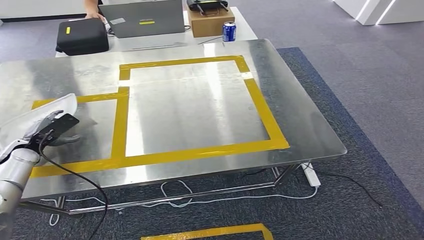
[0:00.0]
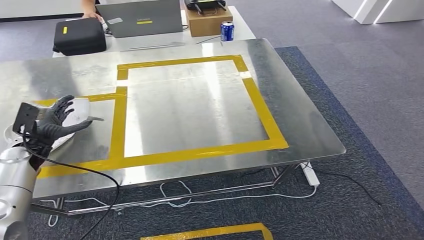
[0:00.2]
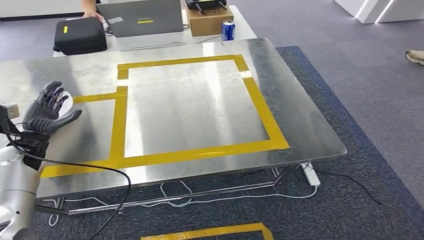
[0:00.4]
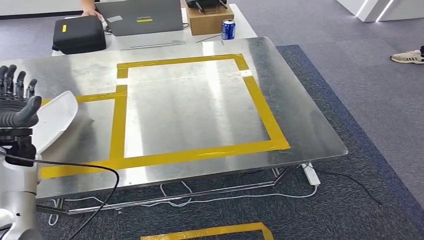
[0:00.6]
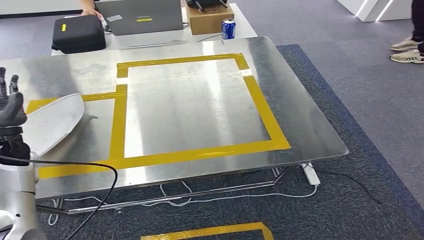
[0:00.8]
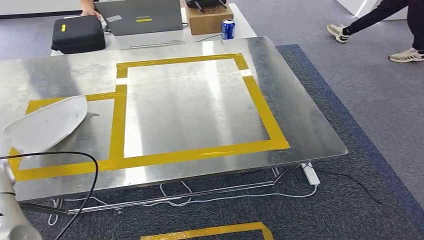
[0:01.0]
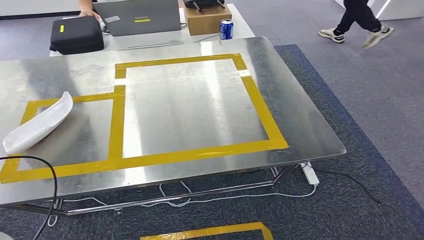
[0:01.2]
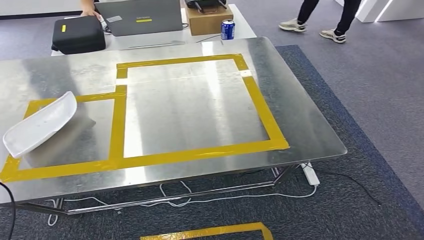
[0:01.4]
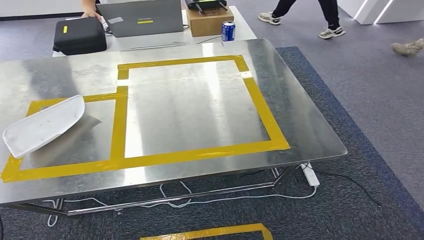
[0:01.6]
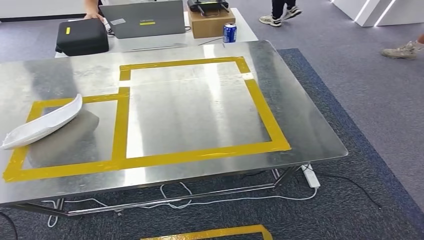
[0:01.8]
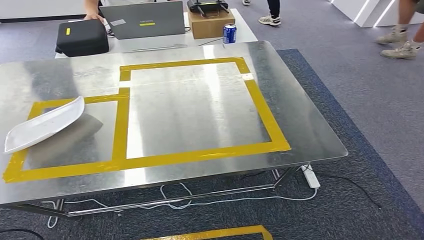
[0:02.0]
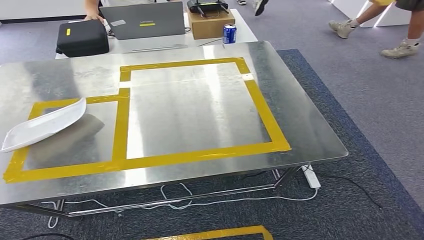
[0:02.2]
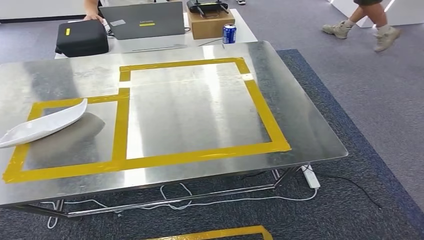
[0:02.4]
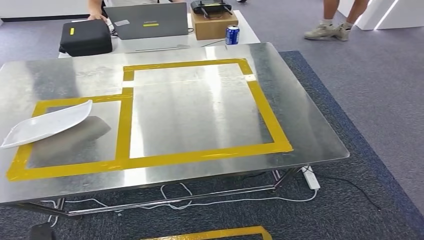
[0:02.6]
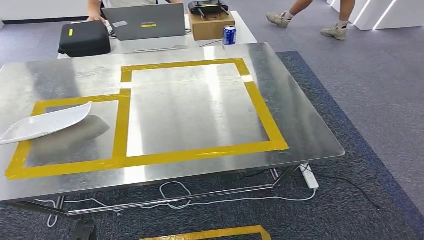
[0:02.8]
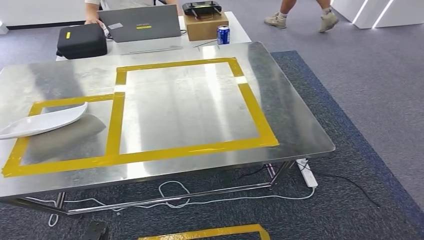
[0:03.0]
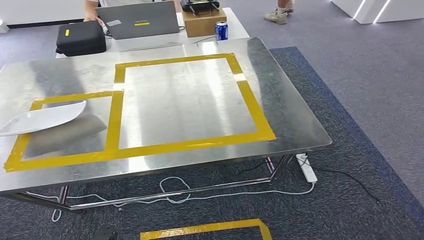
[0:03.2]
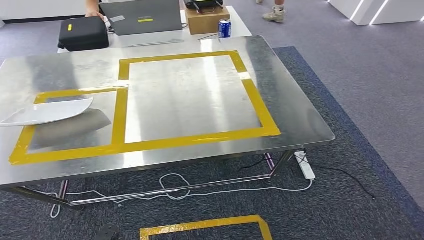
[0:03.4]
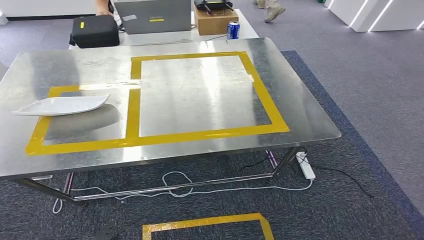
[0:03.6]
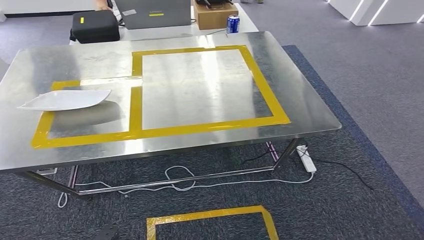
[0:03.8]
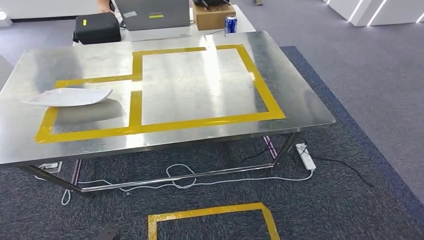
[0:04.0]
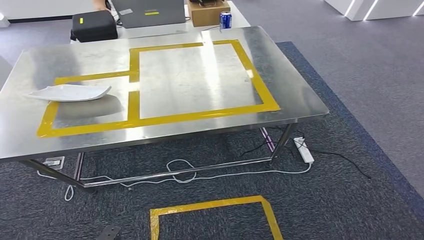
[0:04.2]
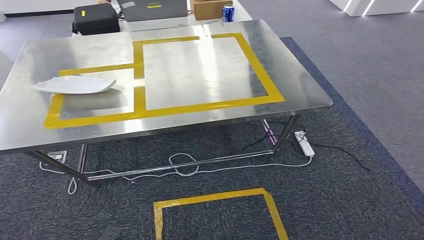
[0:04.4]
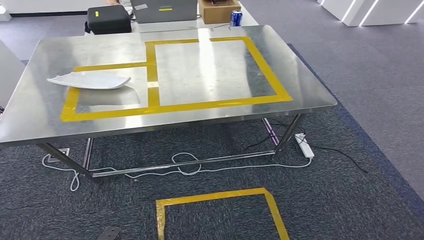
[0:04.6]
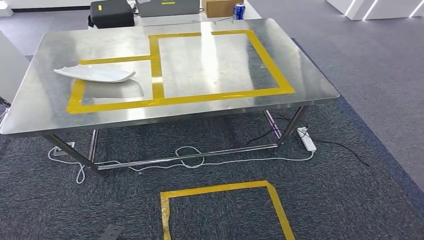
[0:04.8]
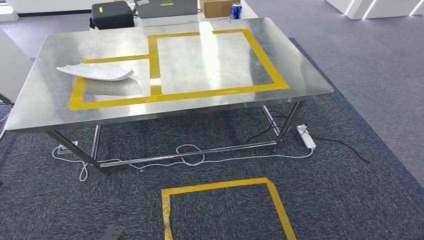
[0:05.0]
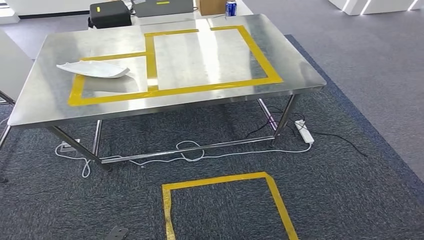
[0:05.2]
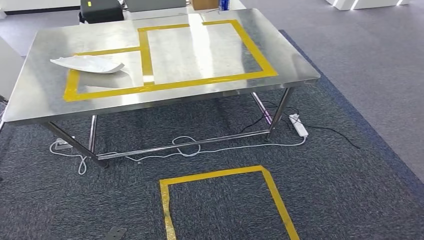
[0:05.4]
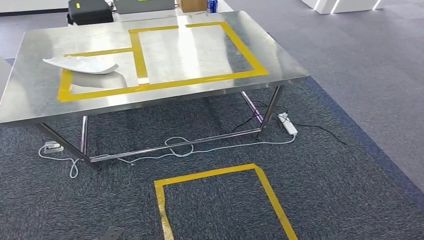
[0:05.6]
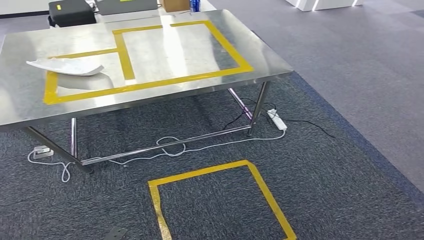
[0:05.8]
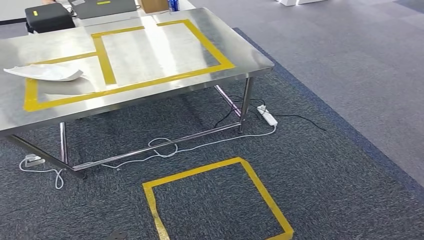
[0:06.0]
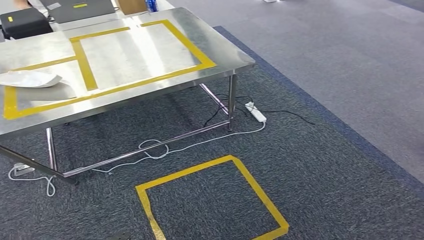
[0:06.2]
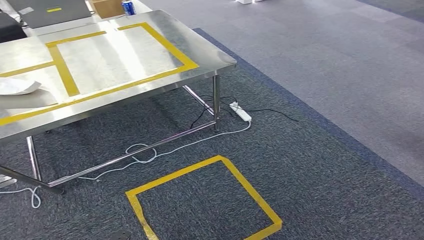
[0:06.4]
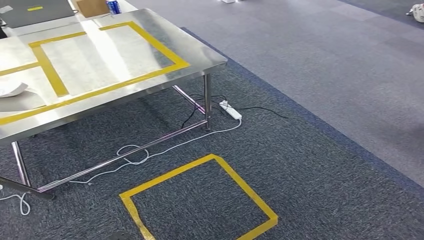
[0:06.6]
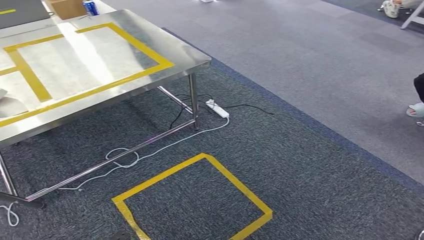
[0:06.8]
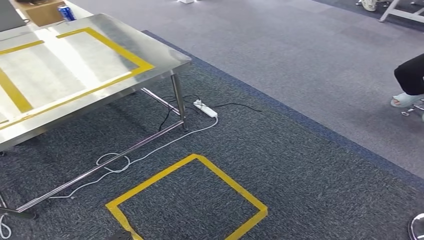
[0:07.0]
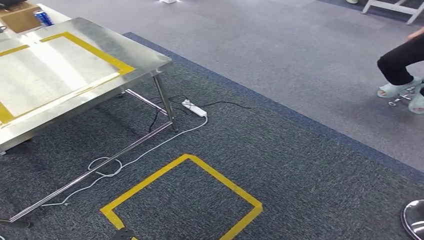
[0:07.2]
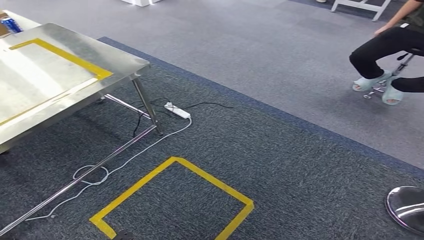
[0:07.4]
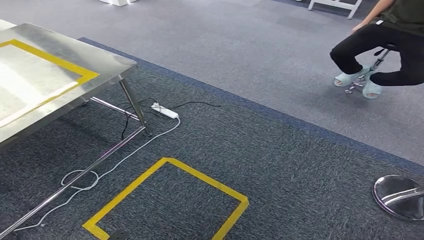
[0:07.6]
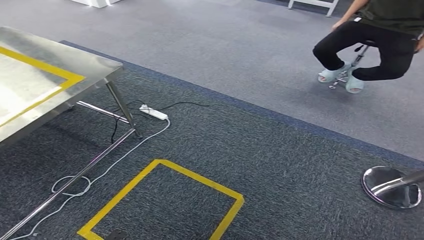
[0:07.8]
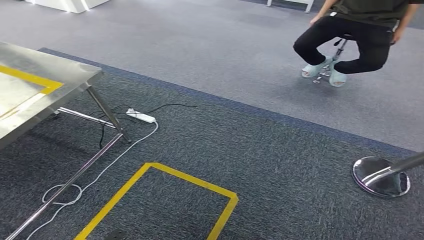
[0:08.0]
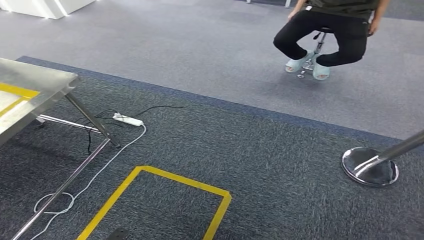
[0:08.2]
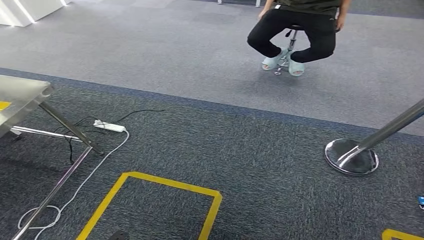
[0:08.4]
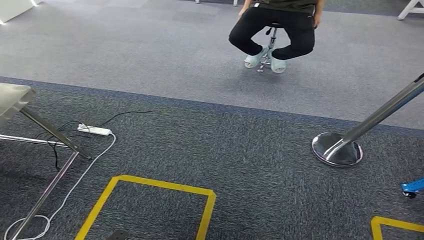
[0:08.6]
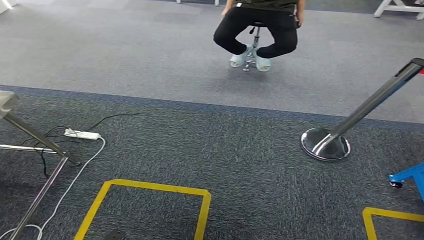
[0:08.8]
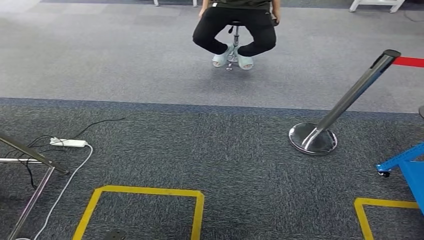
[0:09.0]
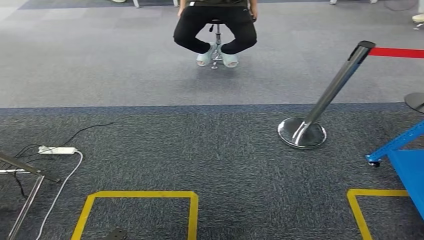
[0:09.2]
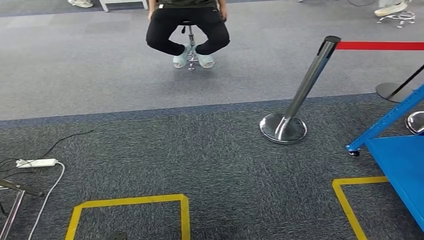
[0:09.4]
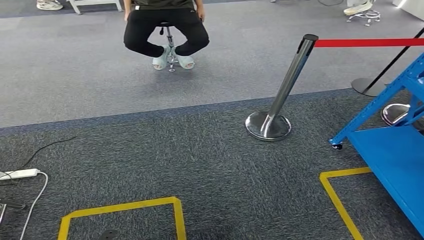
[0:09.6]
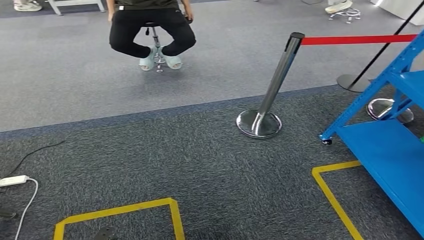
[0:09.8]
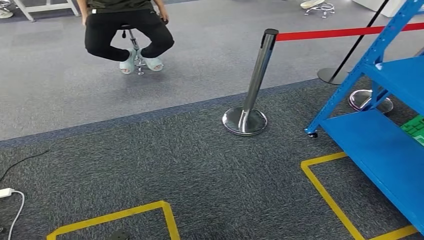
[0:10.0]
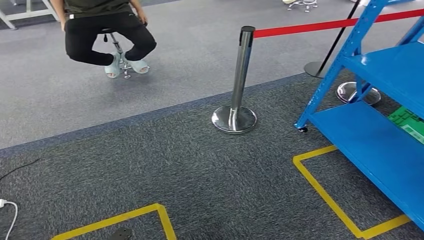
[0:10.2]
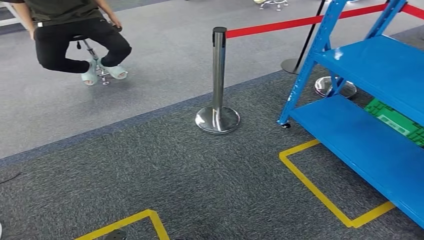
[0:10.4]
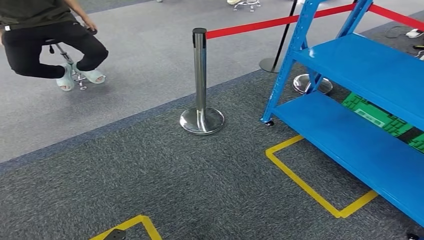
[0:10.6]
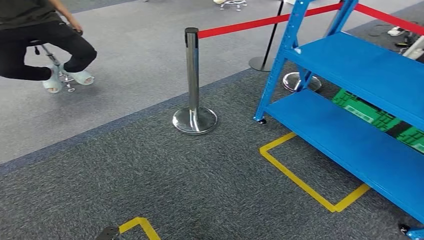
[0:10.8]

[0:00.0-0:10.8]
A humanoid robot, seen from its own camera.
Step, 0:00.0 to 0:02.4: Insert the small component into the corresponding slot on the workbench.
0:00.0 to 0:01.6: The left hand heads backward and to the left, covering roughly 30 cm.

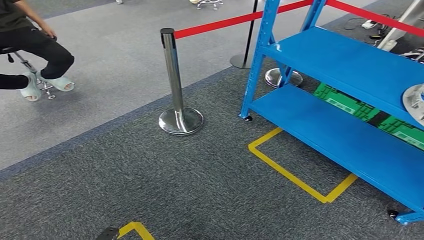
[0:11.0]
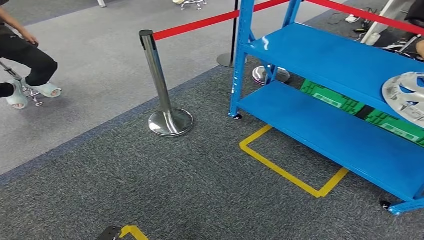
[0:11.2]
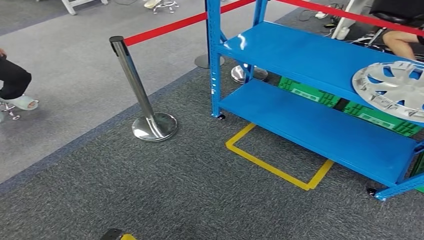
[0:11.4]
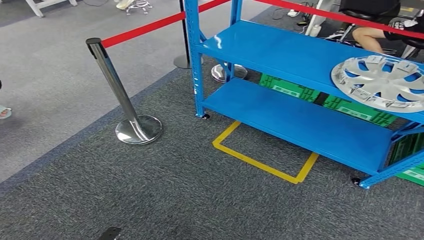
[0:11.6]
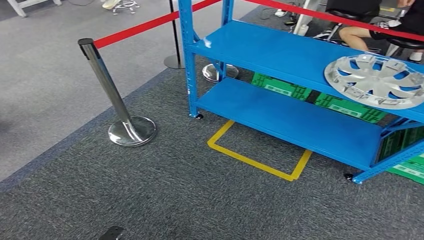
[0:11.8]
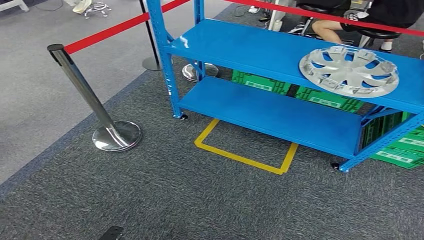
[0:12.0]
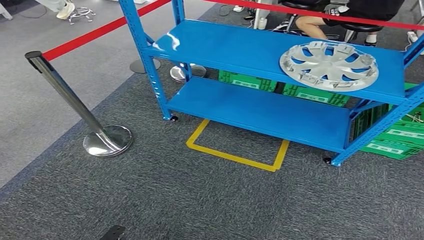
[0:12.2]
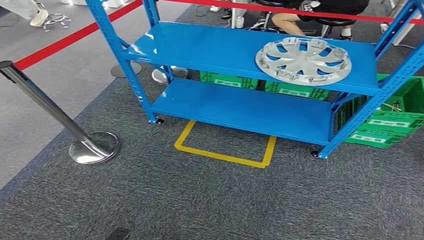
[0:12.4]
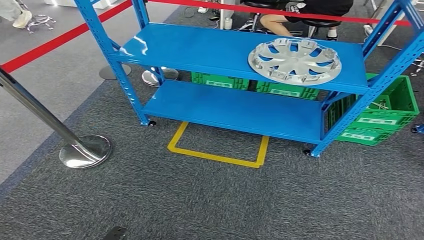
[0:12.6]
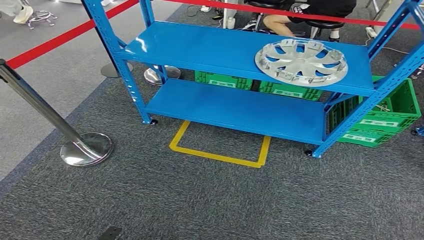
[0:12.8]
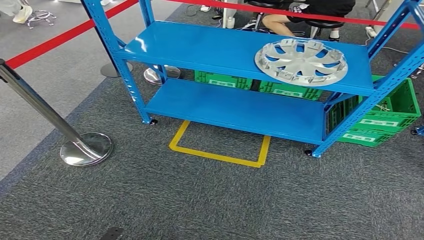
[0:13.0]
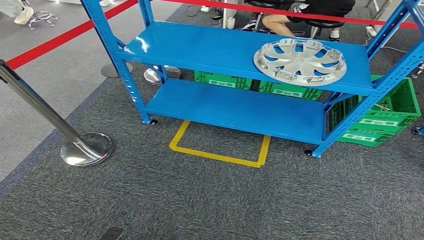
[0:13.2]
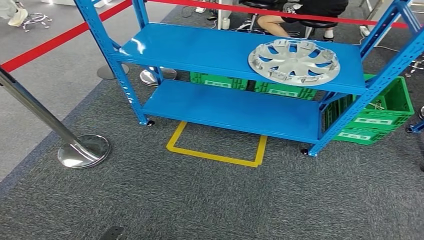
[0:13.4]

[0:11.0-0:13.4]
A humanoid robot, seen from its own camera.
Step, 0:11.0 to 0:13.4: Return to the initial position at the workbench.
